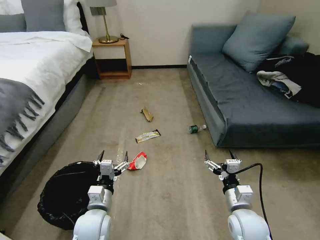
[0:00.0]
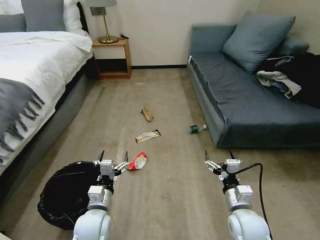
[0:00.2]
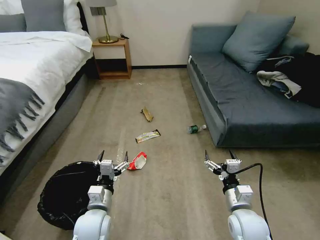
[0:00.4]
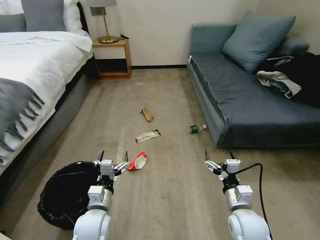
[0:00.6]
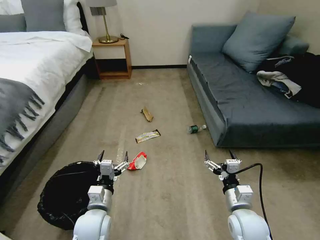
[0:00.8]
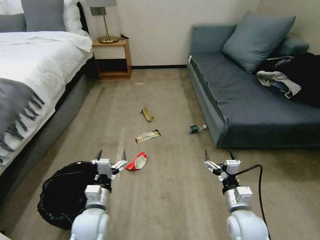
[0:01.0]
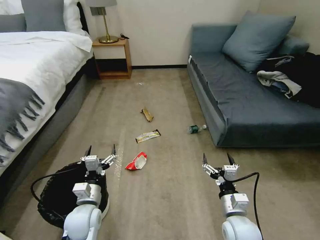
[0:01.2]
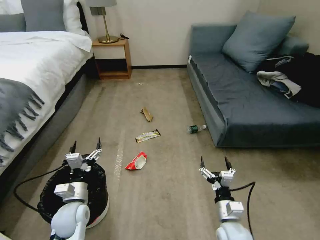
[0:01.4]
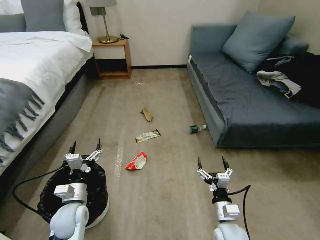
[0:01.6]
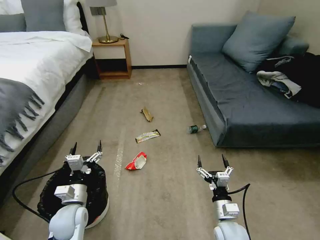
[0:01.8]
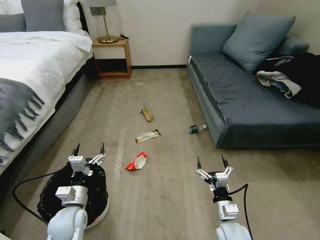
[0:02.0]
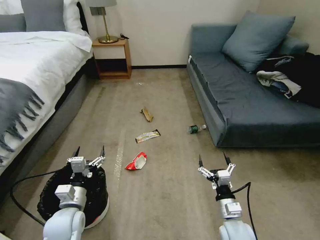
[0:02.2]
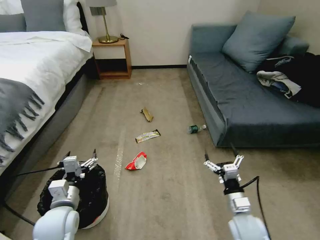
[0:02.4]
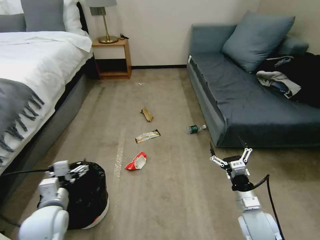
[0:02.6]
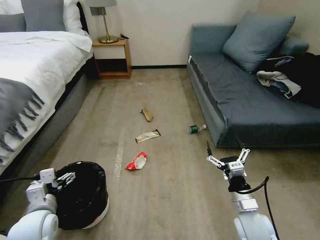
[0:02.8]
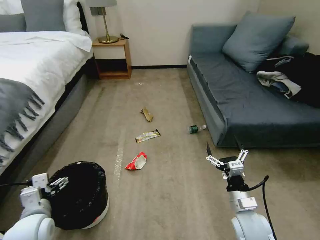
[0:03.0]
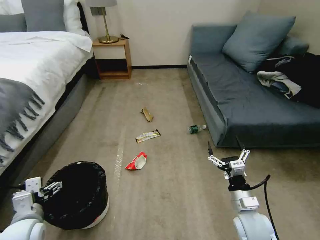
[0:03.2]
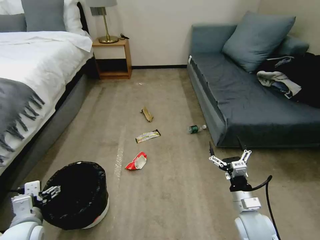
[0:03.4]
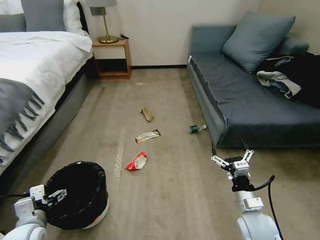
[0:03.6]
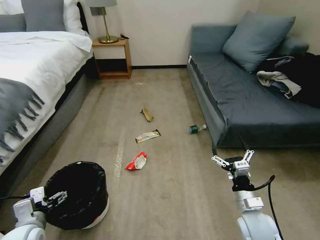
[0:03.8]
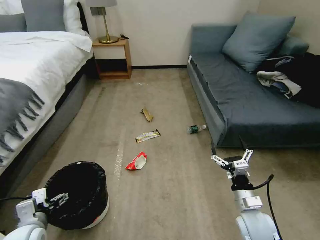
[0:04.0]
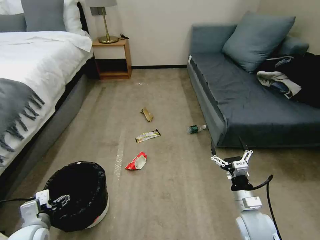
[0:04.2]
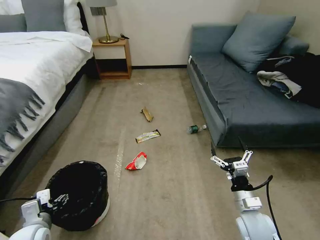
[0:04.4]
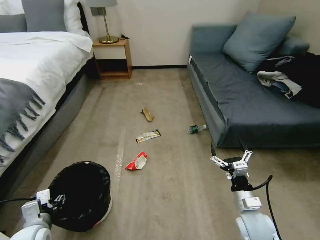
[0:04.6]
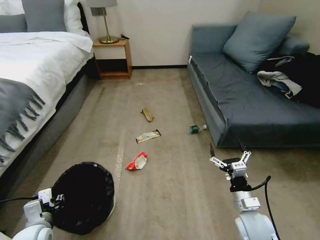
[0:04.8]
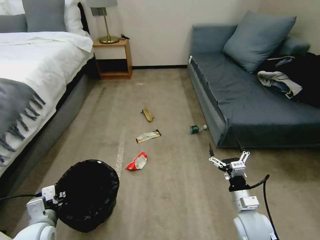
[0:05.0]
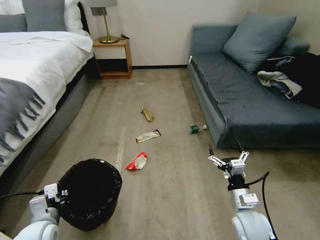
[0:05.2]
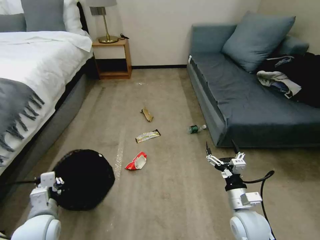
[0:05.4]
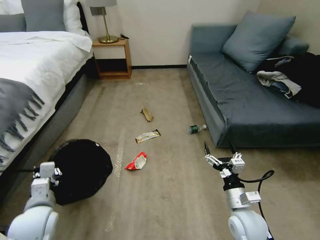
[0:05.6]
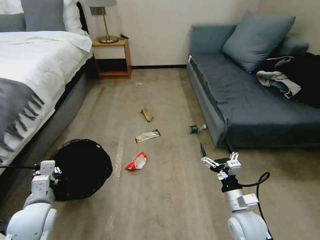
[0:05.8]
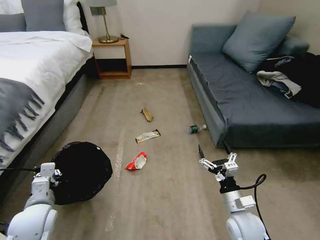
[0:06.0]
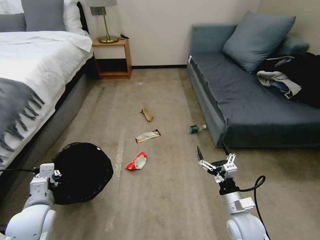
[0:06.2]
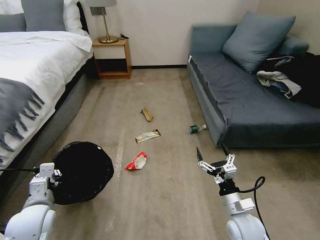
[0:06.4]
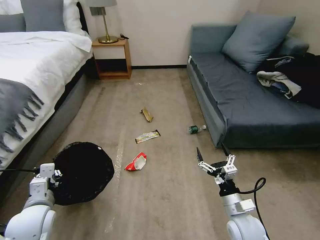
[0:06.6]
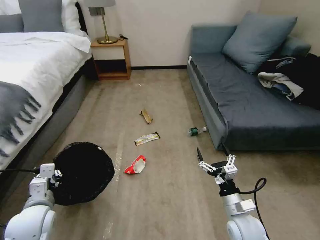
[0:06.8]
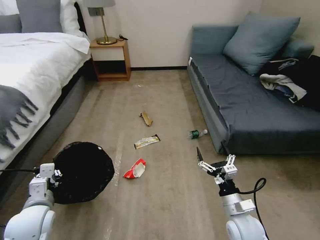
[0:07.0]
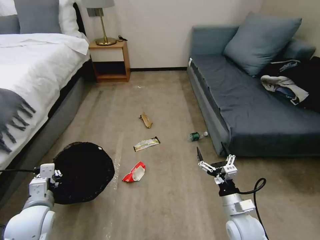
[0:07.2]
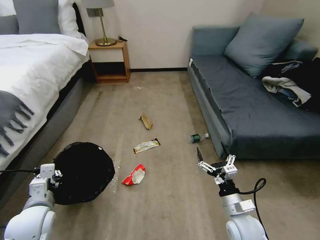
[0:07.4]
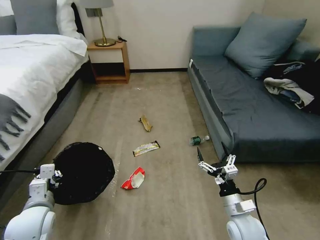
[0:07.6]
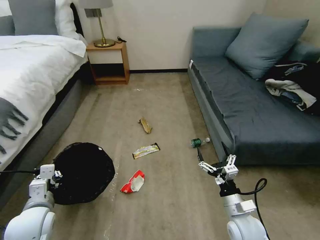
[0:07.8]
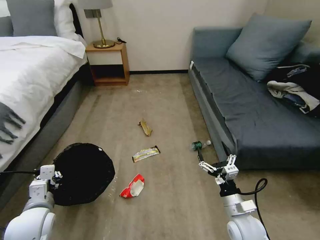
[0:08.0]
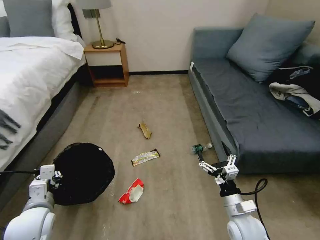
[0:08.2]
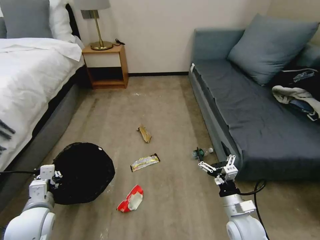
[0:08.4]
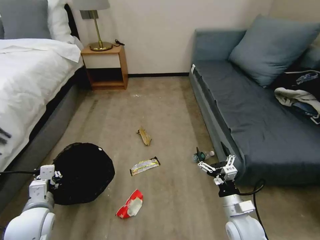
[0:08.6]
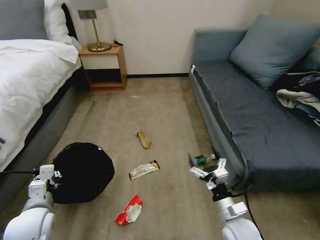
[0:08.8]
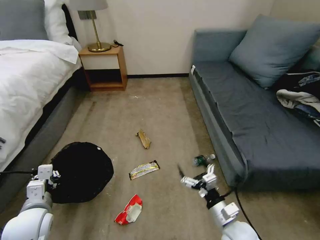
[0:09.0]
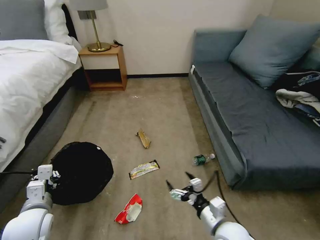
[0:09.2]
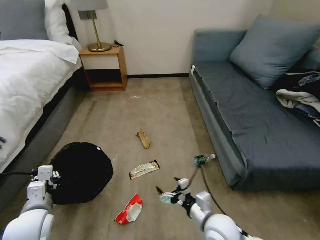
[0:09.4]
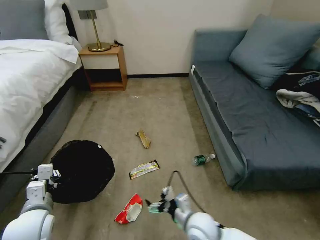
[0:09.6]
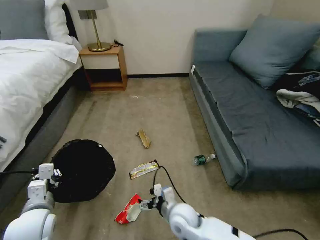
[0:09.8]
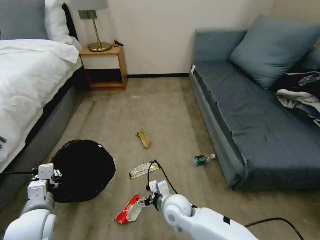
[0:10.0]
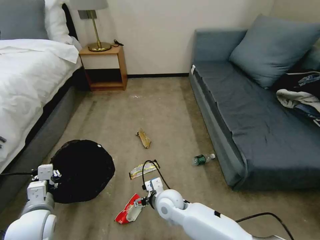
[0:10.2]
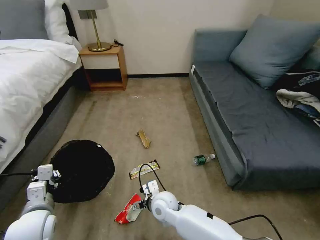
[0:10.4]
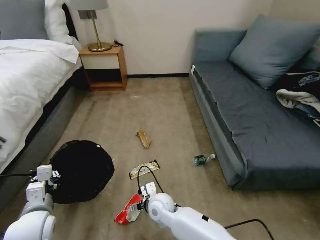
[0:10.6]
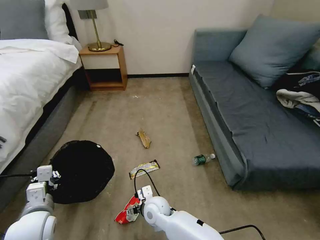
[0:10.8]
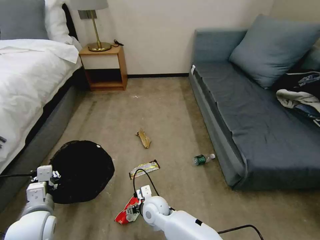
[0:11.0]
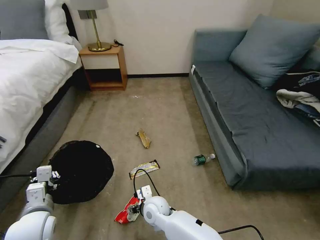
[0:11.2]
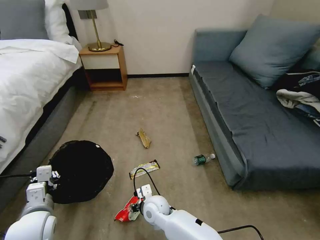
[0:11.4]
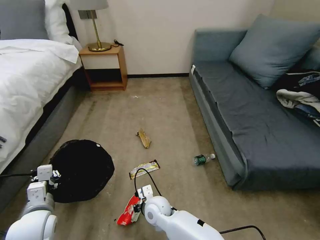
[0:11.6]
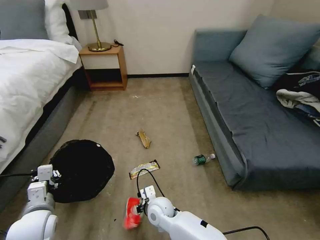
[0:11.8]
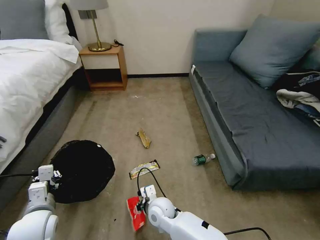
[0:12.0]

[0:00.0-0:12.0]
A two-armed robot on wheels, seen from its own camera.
Task of the whole recording: Pick up the trash bin, then pick up the garbage on the floor and place it into the trash bin.
0:00.0 to 0:01.6: The right gripper moves downward, about 5 cm; the left gripper moves to the left, about 10 cm.
0:01.6 to 0:03.0: The right gripper goes some 5 cm upward. The left gripper is displaced upward, to the left and backward by some 10 cm.
0:03.0 to 0:04.4: The grippers move only a little.
0:04.4 to 0:06.0: The left gripper changes place by some 5 cm, and closes.
0:09.0 to 0:10.4: The right gripper shifts about 25 cm to the left and forward.
0:10.4 to 0:12.0: The right gripper closes.

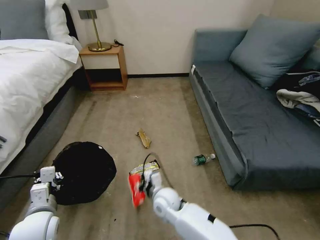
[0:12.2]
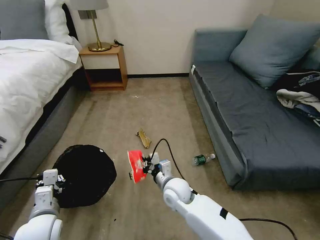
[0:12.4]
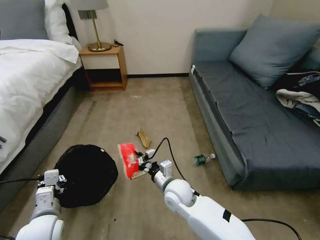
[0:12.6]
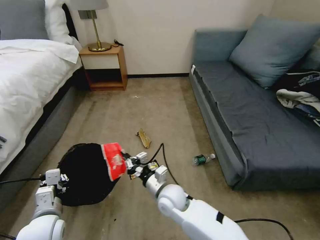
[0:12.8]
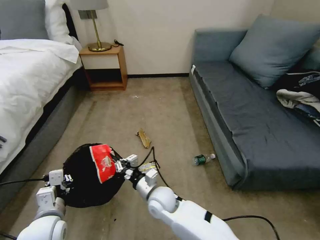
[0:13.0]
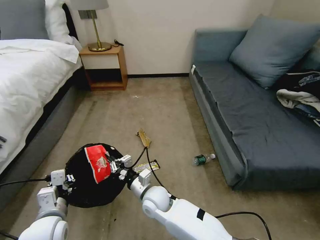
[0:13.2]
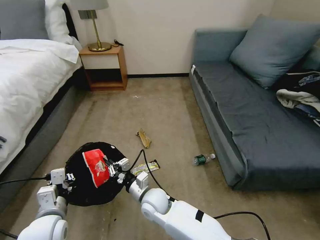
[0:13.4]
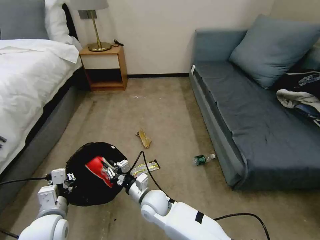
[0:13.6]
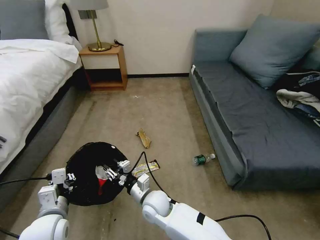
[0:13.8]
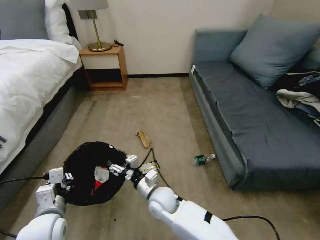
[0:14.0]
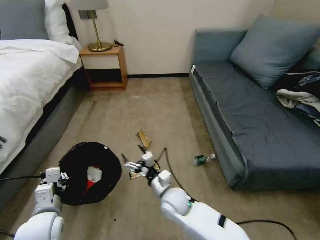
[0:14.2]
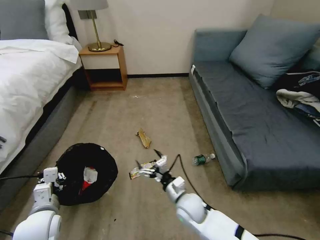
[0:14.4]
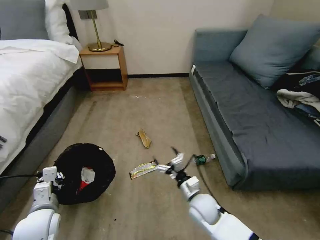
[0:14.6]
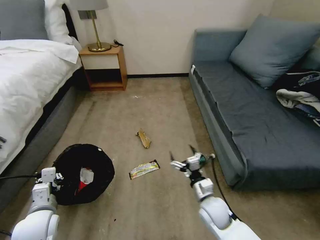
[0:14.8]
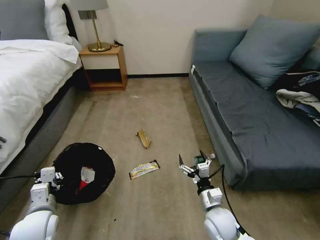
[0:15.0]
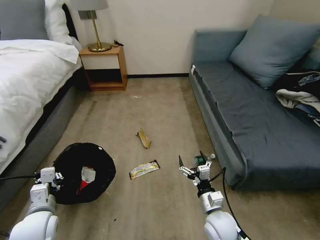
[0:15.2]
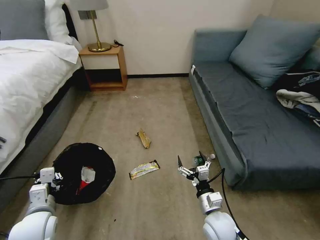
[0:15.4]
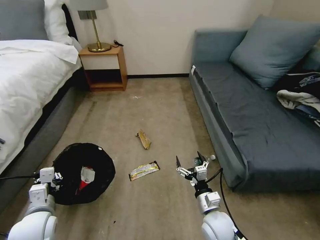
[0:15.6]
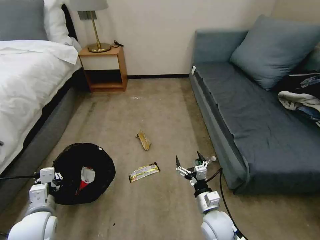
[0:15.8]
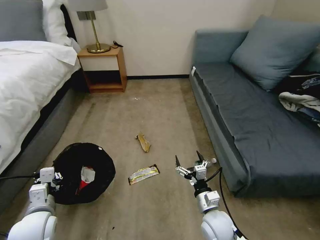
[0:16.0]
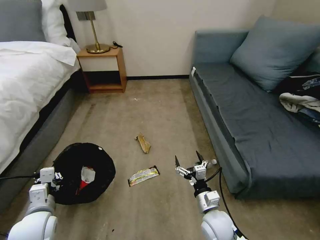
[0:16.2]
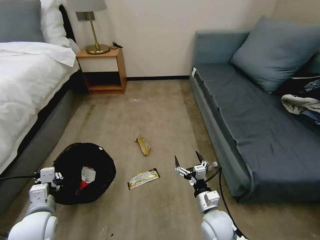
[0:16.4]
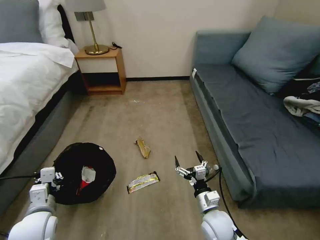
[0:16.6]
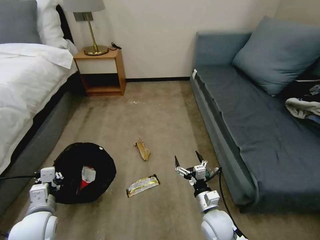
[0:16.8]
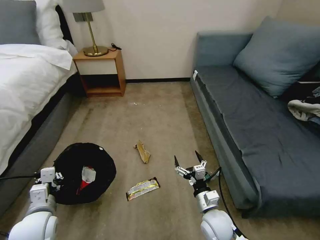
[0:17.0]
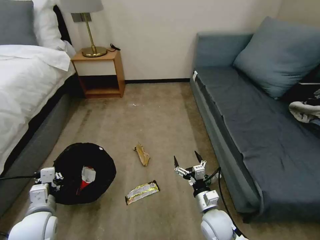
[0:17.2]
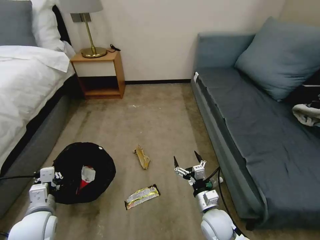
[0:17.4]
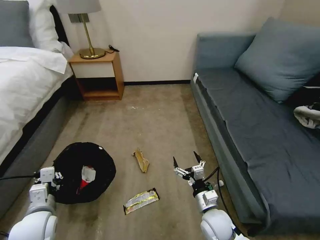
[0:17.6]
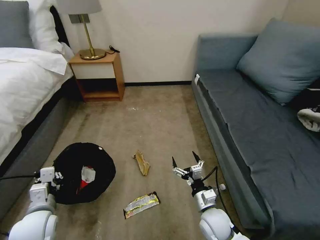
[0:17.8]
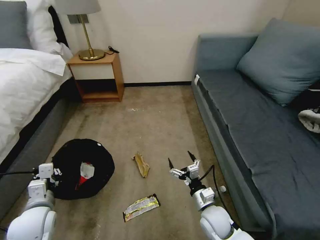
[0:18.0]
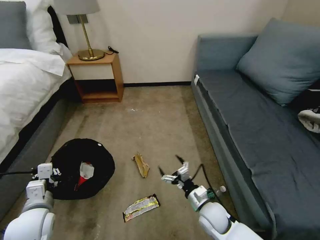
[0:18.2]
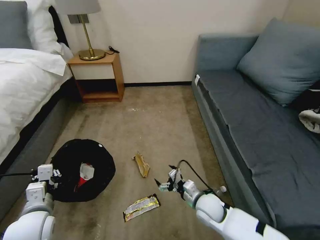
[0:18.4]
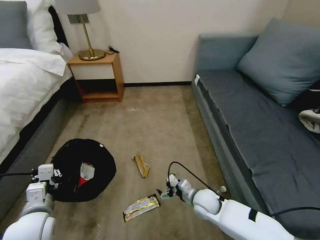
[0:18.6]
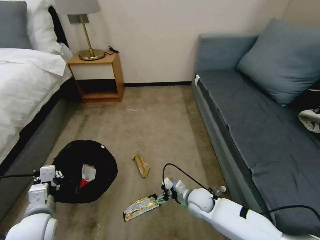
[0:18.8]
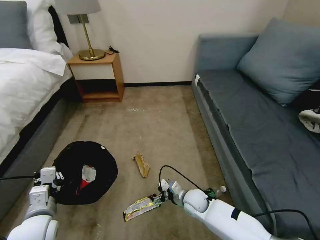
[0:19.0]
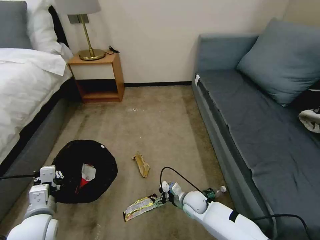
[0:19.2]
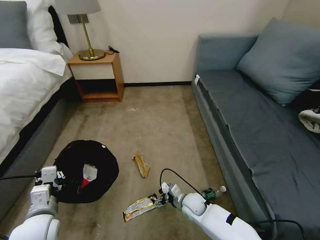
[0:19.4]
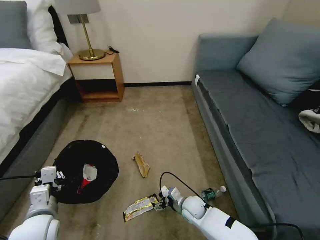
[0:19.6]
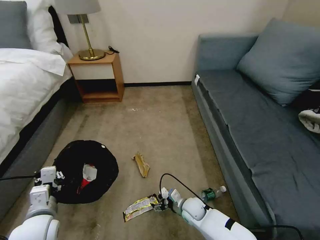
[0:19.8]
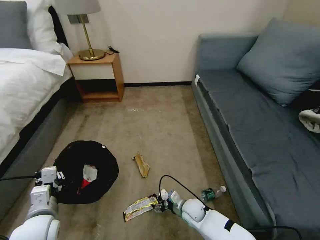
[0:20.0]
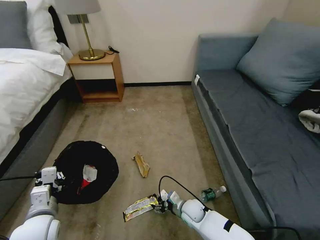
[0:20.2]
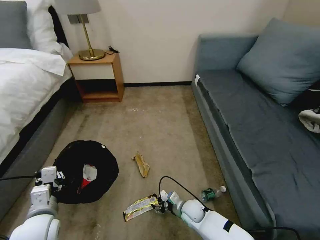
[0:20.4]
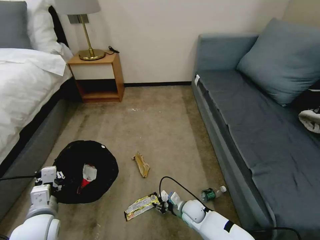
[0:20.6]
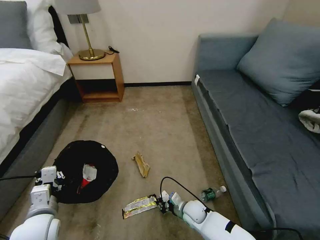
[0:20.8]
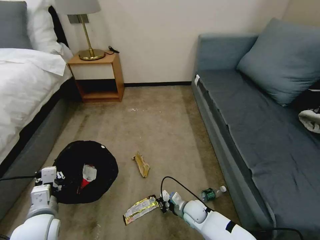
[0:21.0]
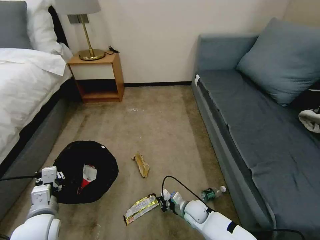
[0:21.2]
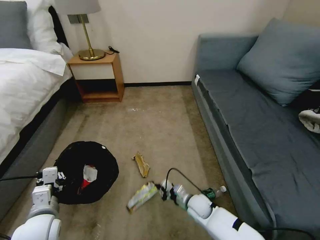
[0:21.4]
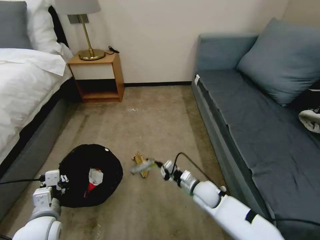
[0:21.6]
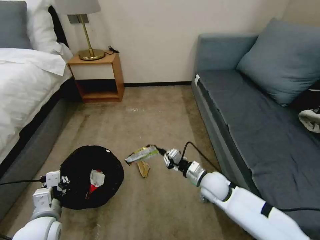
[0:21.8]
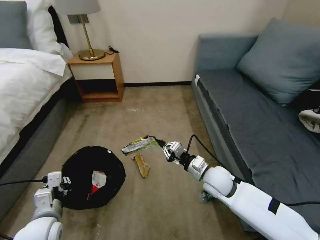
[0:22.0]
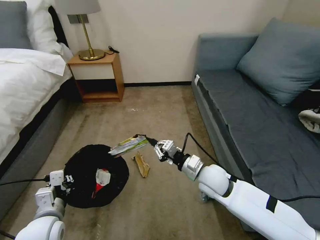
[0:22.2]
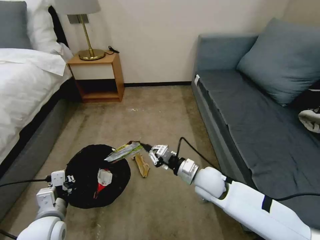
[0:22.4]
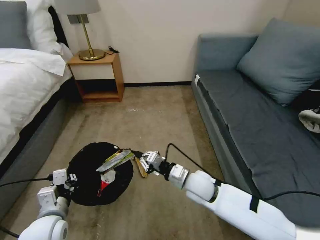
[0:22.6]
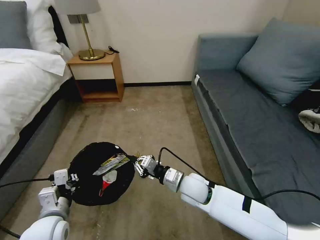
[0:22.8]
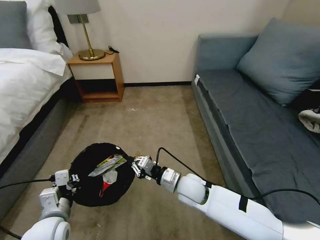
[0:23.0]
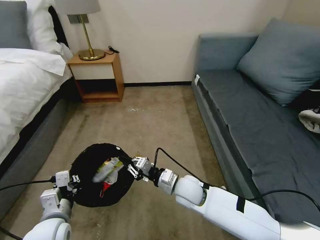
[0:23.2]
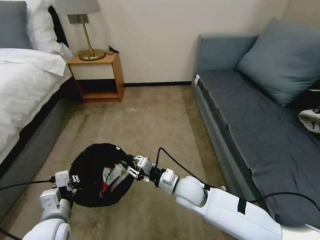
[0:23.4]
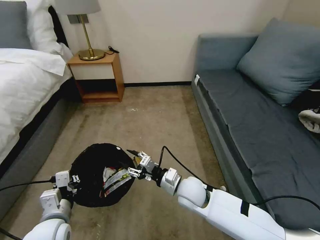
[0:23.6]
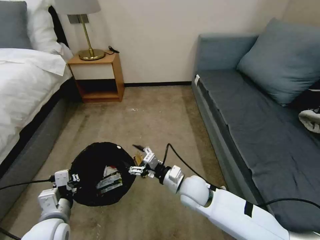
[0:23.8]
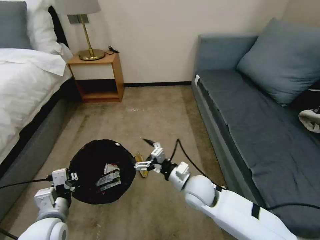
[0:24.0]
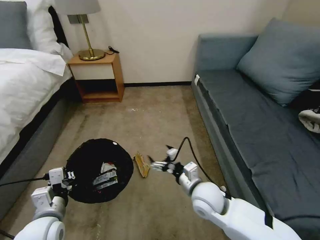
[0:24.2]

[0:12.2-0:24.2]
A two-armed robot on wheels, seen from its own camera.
Task of the whole recording: Pick up the trash bin, then pick up the garbage on the floor and place it into the trash bin.
0:12.2 to 0:13.8: The right gripper opens its fingers.
0:13.8 to 0:15.2: The right gripper heads to the right, covering roughly 20 cm, and opens its fingers. Meanwhile the left gripper ends up approximately 5 cm from where it was.
0:15.2 to 0:16.6: Neither gripper changes place.
0:18.2 to 0:19.8: The right gripper travels downward by some 10 cm.
0:19.8 to 0:21.2: The right gripper closes its fingers.
0:21.2 to 0:22.6: The right gripper heads upward, covering some 20 cm.
0:22.6 to 0:24.2: The right gripper opens.
